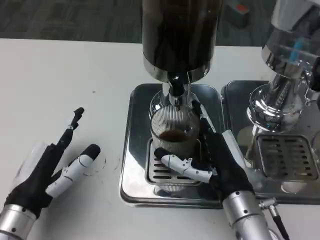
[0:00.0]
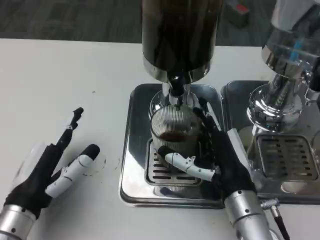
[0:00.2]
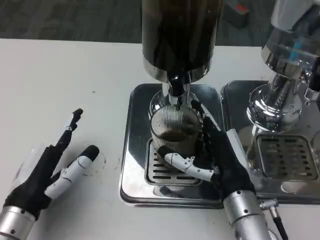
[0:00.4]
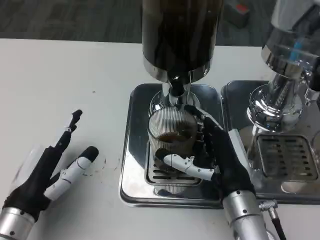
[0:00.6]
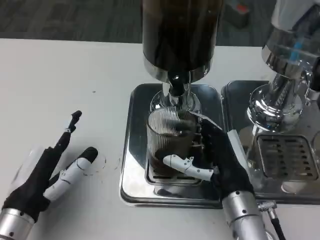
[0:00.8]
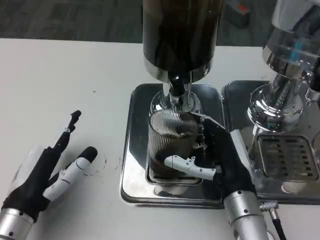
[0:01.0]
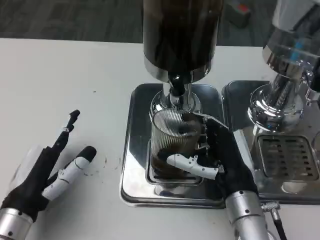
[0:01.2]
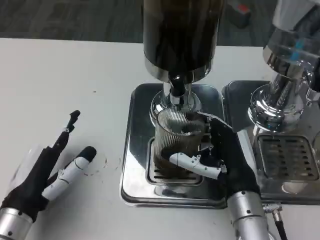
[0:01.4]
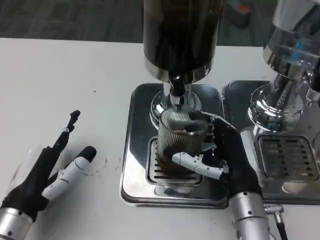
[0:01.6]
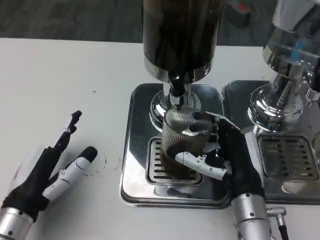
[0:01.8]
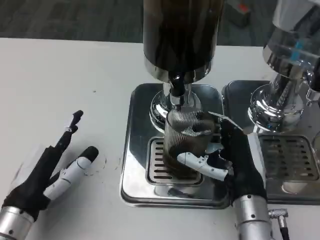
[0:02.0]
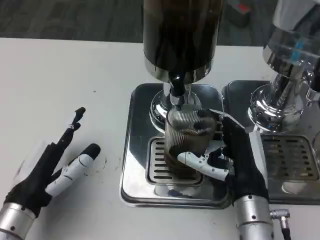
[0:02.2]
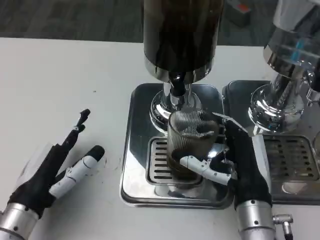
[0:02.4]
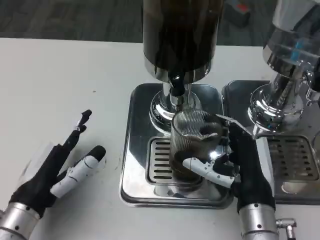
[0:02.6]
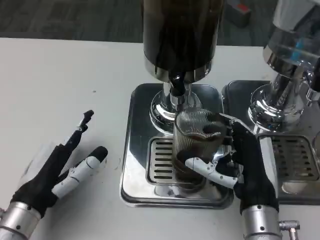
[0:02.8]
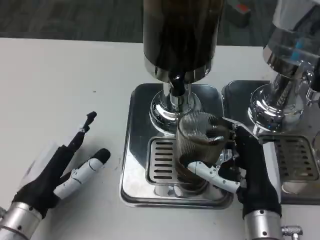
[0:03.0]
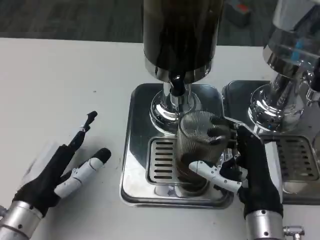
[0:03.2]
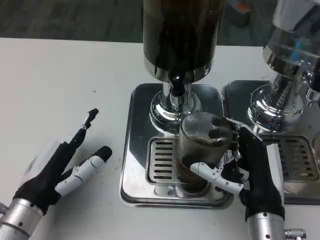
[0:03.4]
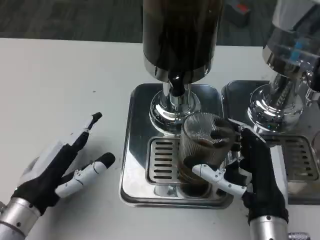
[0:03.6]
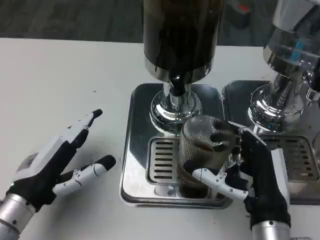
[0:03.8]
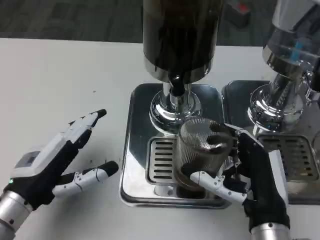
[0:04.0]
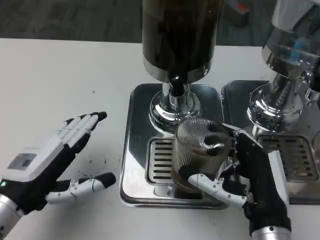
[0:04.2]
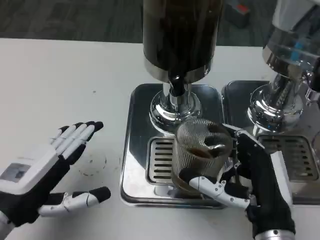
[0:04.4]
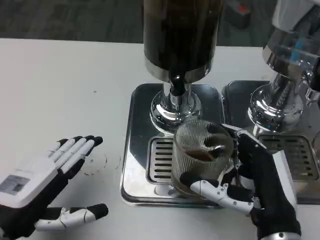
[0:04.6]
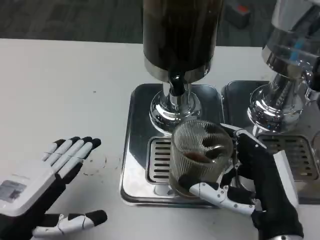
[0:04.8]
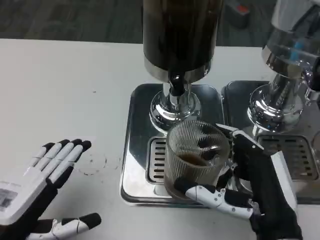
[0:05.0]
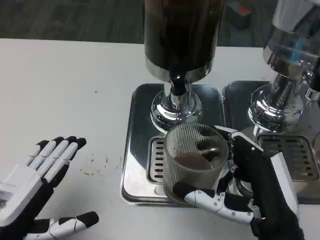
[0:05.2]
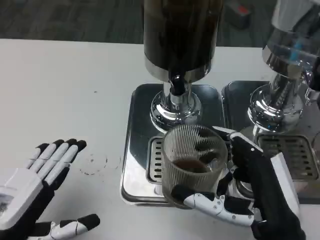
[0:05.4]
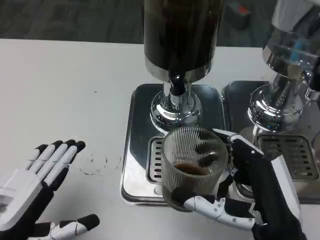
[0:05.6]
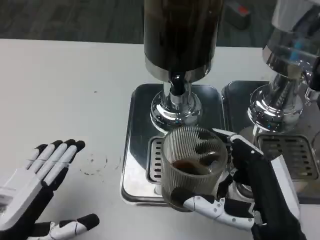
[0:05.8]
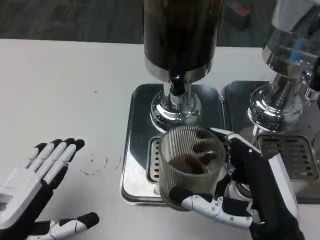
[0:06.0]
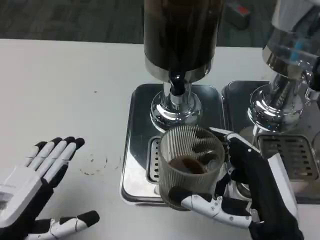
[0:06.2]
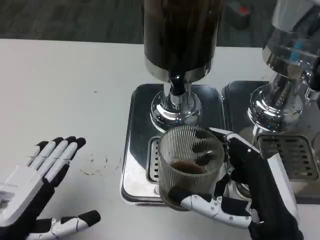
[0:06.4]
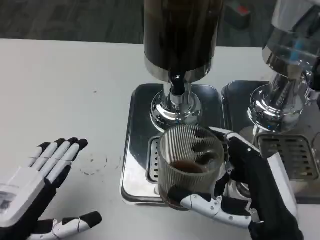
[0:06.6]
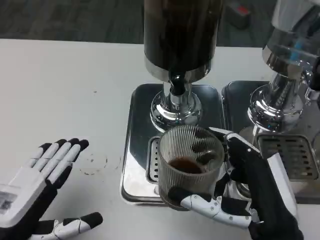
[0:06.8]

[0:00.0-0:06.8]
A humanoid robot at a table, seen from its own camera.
Task of the whole recording: Grasp the cup under the faucet to collect the drink, then remove the cup.
0:00.0 to 0:02.8: There are only small adjustments of the hands.
0:04.0 to 0:05.4: The left hand moves backward, approximately 10 cm, while the right hand shifts by some 5 cm.
0:05.4 to 0:06.8: Neither hand changes place.
